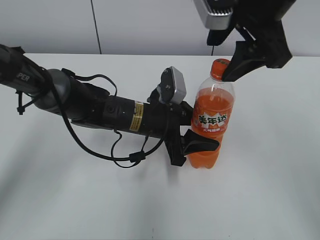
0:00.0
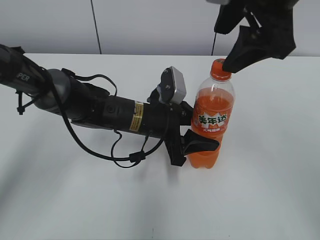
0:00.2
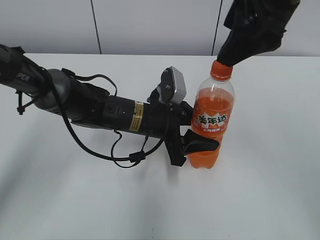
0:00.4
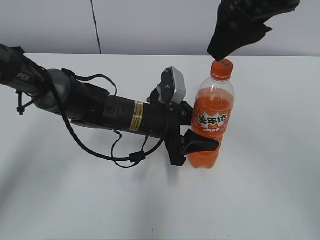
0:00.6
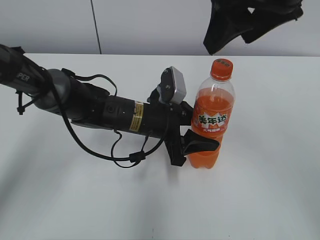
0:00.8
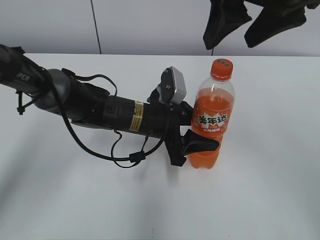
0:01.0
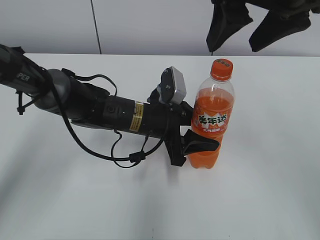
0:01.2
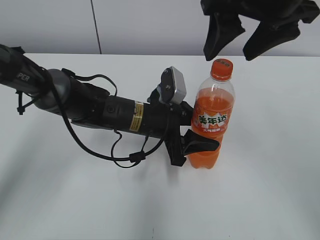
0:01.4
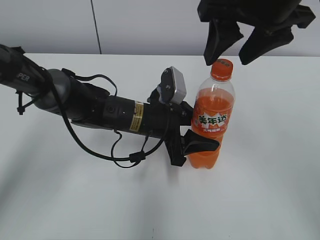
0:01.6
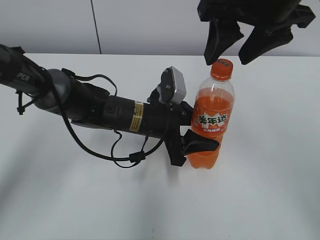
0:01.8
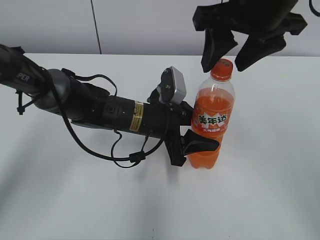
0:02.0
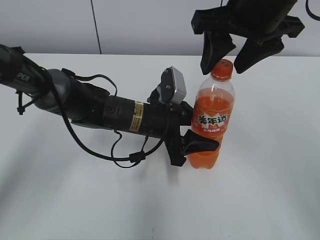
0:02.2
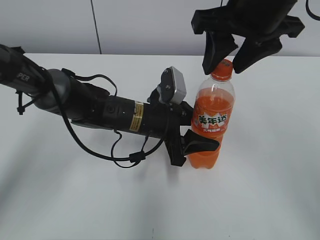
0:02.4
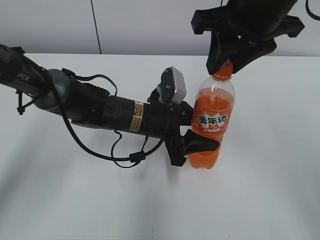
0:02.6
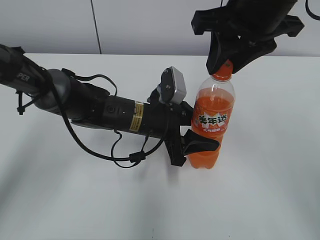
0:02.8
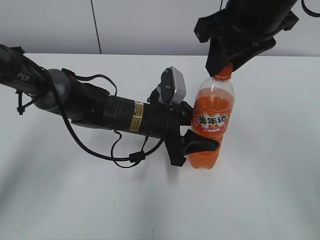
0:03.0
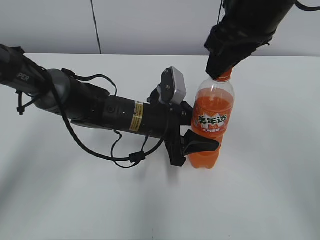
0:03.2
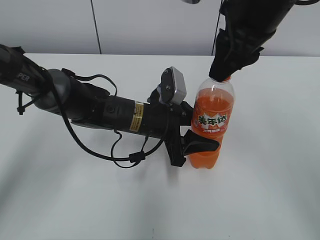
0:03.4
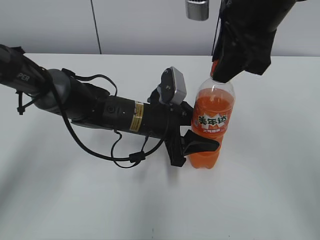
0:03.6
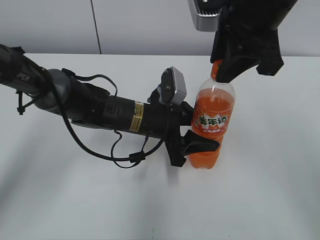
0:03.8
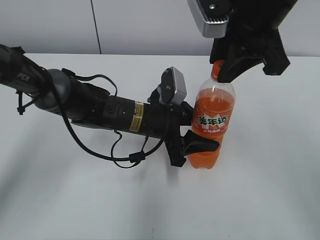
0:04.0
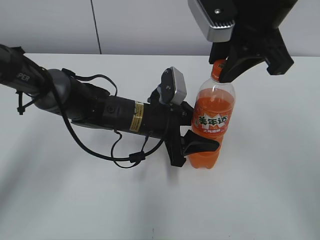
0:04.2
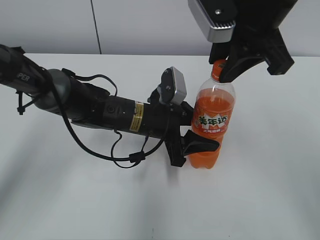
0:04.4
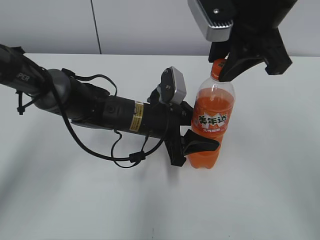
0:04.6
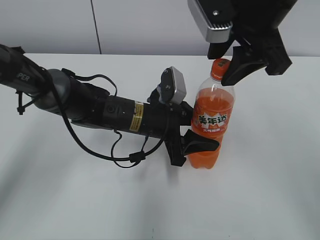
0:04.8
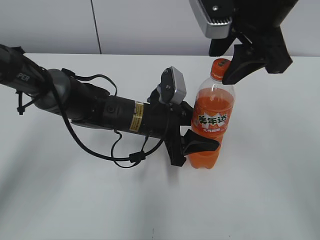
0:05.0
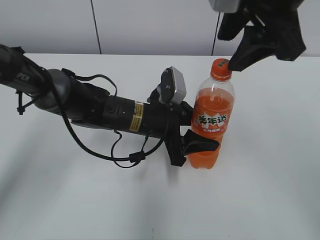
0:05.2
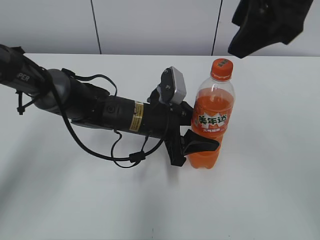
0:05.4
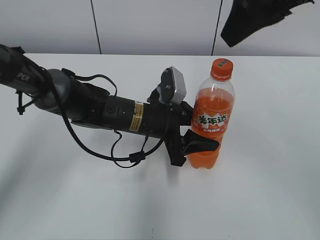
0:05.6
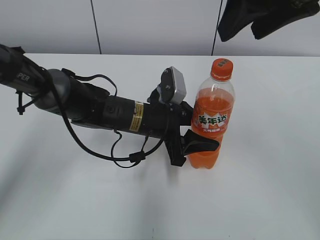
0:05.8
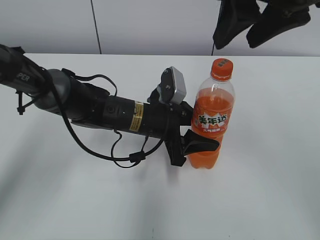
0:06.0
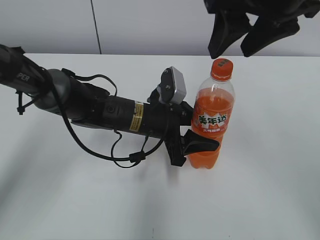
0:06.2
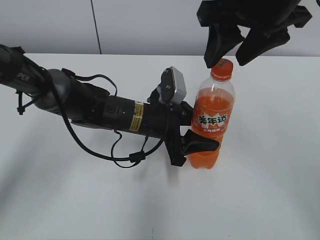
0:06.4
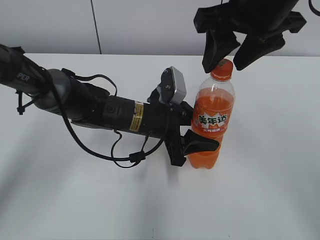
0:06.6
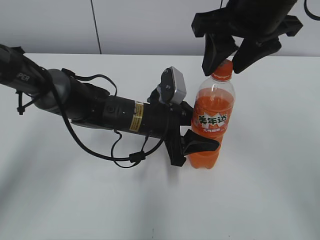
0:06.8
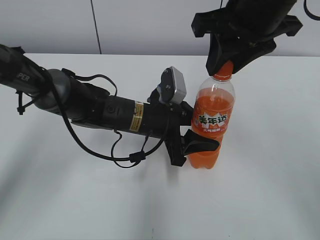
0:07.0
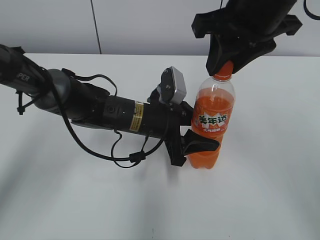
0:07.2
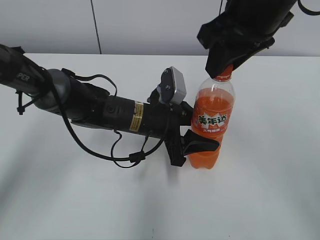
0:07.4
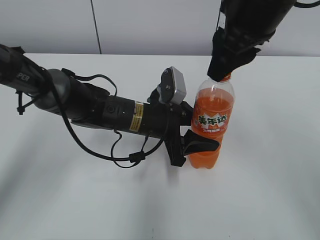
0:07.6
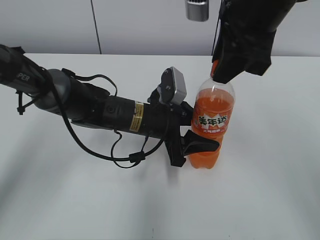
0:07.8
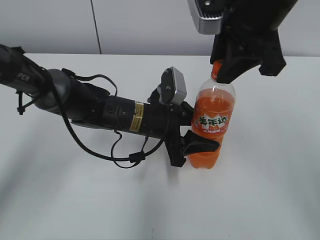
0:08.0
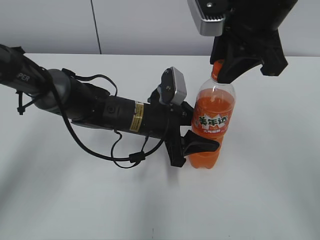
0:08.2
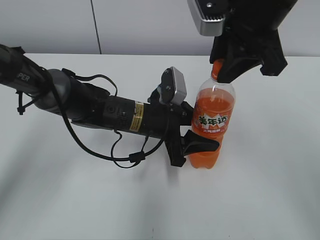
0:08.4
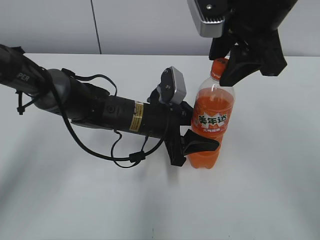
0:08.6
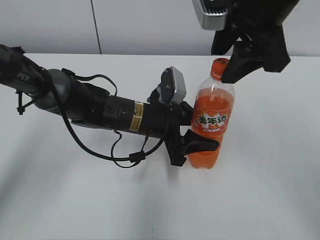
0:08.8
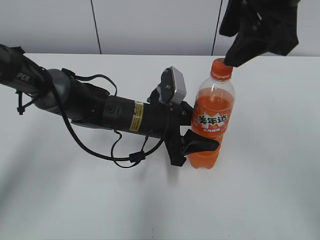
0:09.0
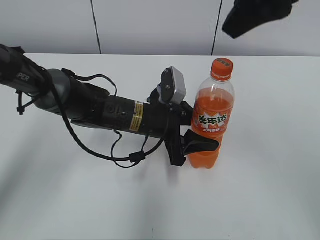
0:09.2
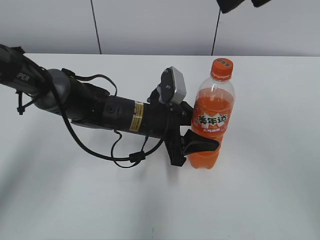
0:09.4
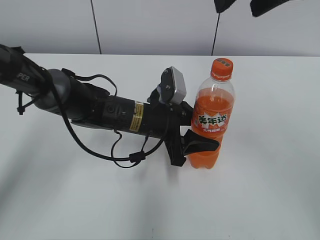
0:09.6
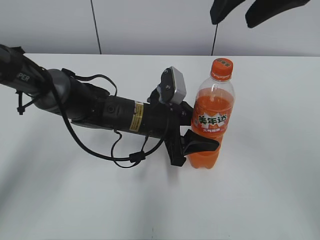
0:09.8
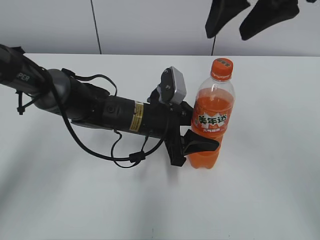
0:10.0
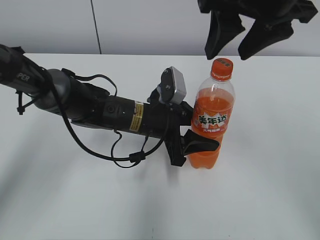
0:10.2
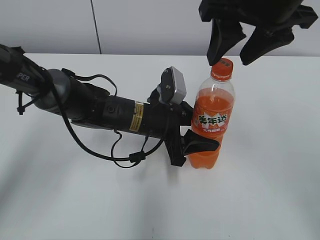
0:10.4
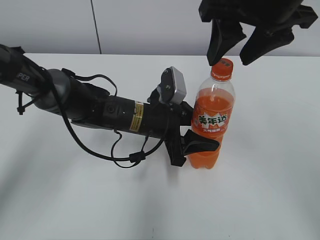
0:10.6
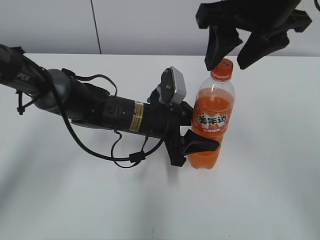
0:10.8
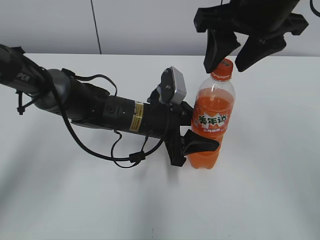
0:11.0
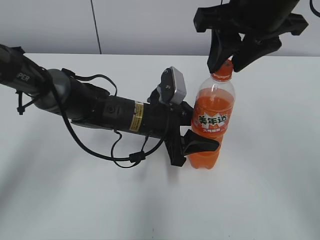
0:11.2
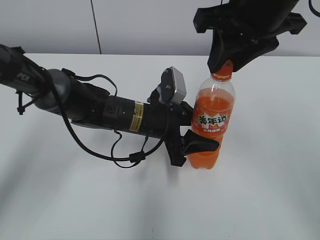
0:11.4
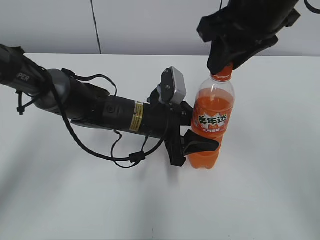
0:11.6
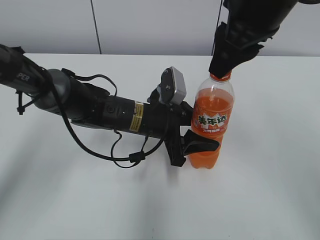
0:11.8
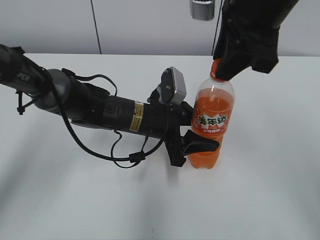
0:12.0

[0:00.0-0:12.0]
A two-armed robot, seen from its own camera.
0:01.6 to 0:03.0: The right gripper closes.
0:04.4 to 0:06.0: The right gripper ends up about 5 cm from where it was, and opens up.
0:06.0 to 0:07.6: The right gripper changes place by approximately 5 cm, and closes up.
0:07.6 to 0:09.0: The right gripper opens.
0:10.4 to 0:12.0: The right gripper closes.

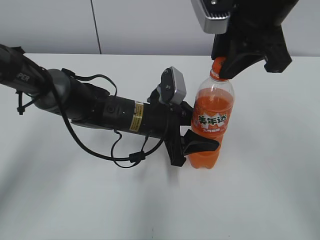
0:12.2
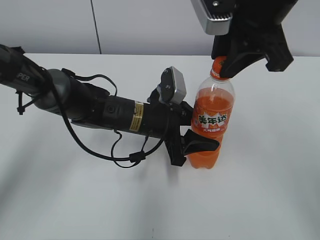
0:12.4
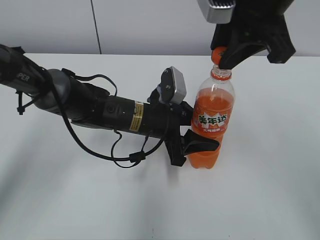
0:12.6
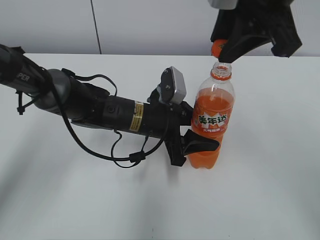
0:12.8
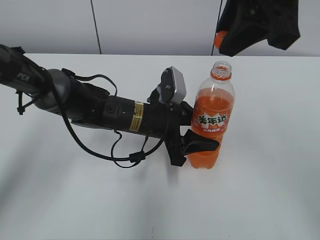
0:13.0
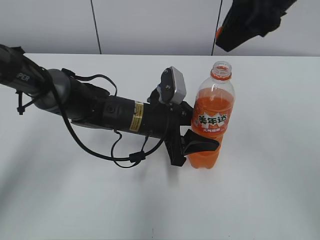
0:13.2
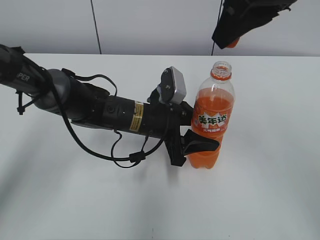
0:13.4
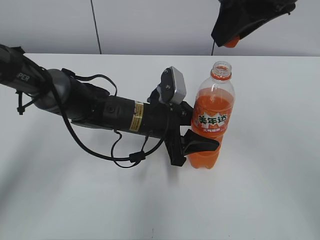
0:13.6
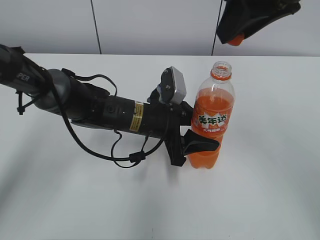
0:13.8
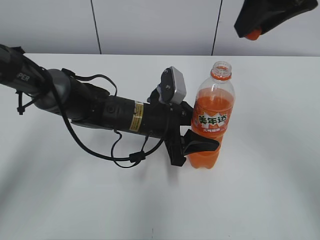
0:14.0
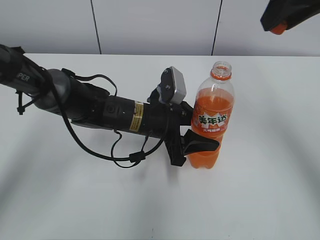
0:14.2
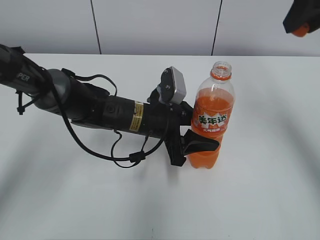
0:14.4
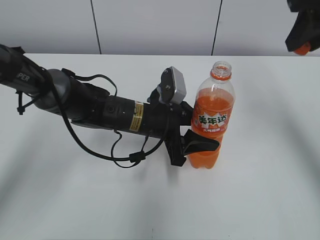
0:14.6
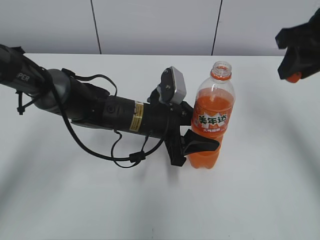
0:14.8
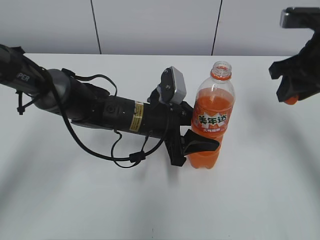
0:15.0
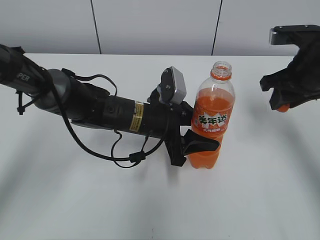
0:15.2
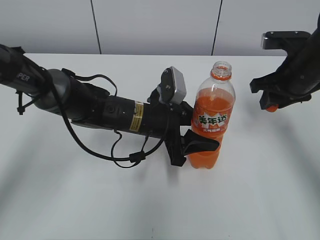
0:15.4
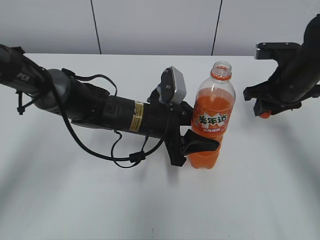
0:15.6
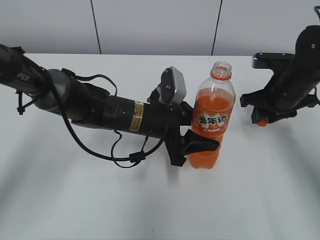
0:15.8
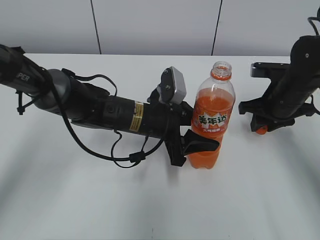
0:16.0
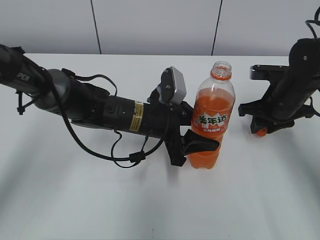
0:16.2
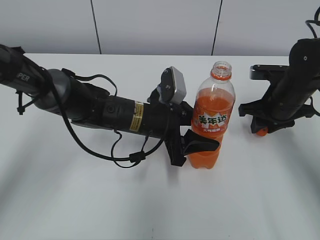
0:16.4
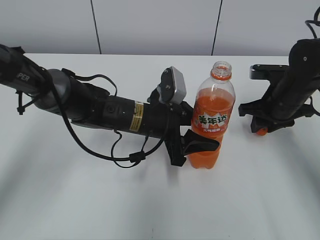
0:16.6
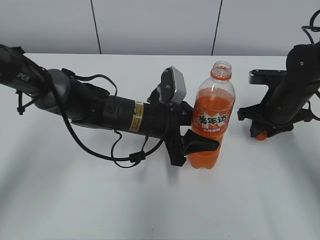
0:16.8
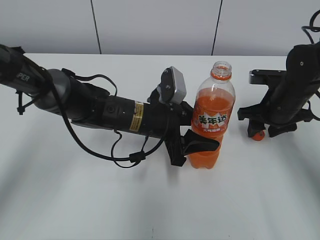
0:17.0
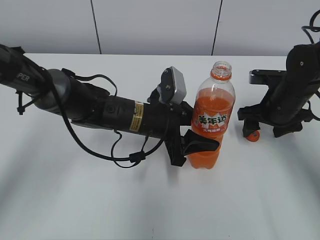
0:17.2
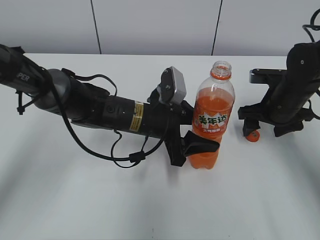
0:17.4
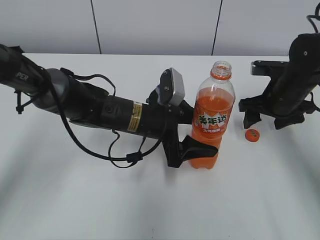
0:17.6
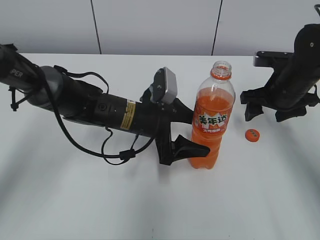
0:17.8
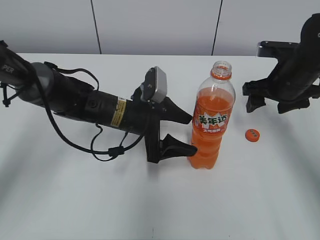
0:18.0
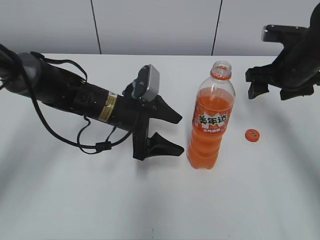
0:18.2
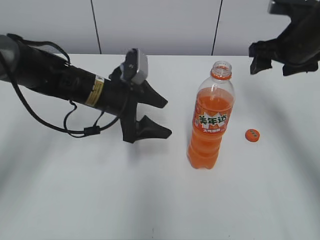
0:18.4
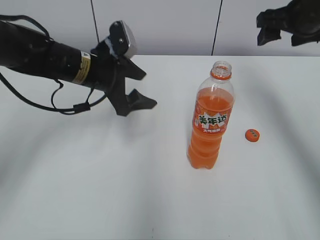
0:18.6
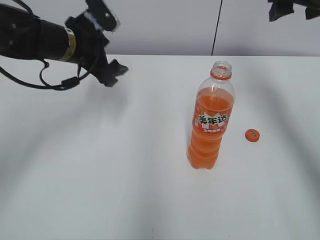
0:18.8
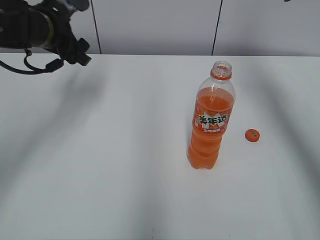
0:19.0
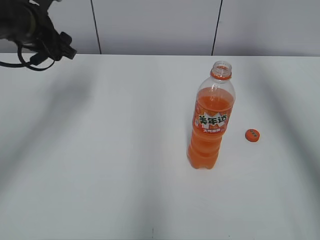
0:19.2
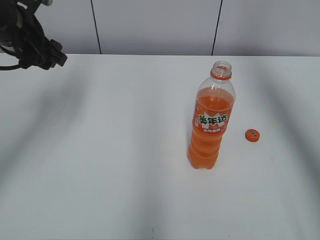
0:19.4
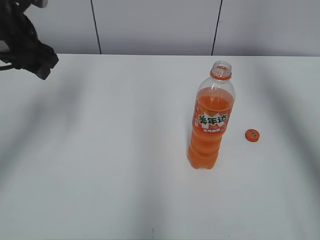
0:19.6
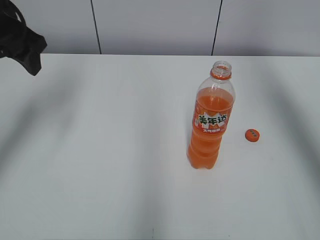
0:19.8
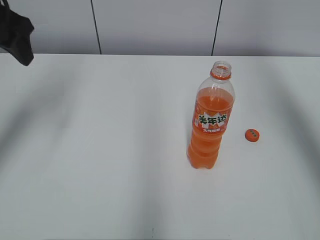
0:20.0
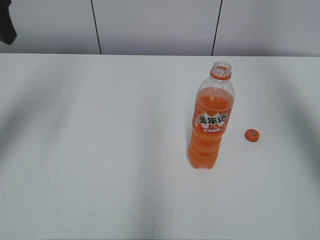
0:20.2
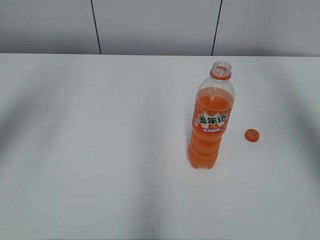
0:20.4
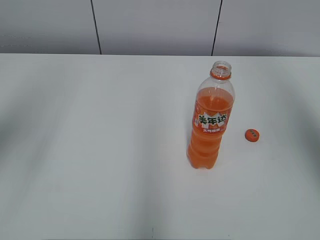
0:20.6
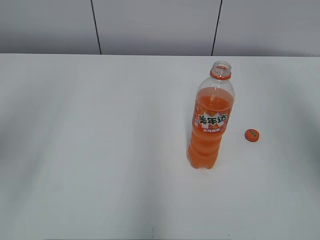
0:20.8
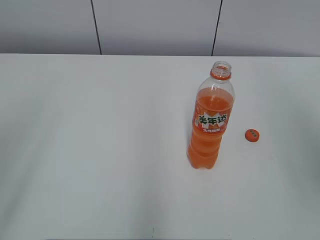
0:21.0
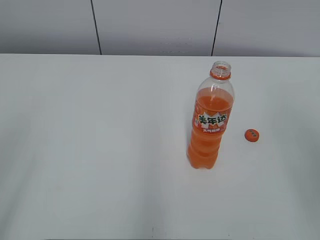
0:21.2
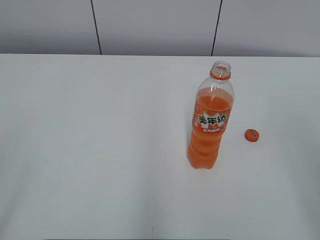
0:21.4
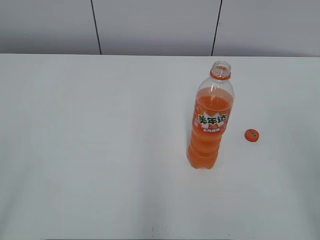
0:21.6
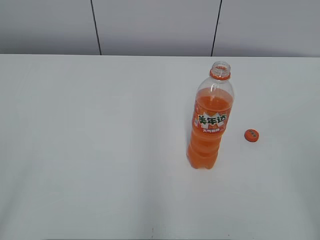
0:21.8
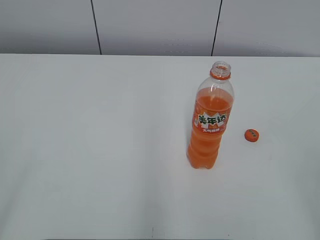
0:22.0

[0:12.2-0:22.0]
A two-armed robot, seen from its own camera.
Step, 0:12.8 to 0:17.0: Place the bottle cap on the right.
0:13.6 to 0:15.0: The right gripper shifts about 15 cm downward and to the right.
0:15.0 to 0:16.4: The right gripper heads downward, covering roughly 15 cm.
0:16.4 to 0:17.8: The right gripper opens up; the left gripper opens.
0:17.8 to 0:19.2: The left gripper heads to the left and upward, covering some 25 cm; the right gripper goes about 25 cm upward.
0:19.2 to 0:20.6: Both grippers travel together backward and upward, approximately 20 cm.
0:20.6 to 0:22.0: The left gripper shifts roughly 25 cm backward and downward. Meanwhile the right gripper travels downward and backward by some 30 cm.
